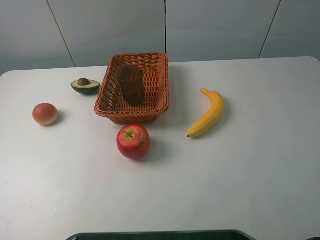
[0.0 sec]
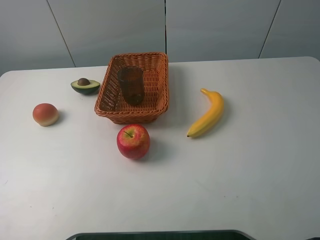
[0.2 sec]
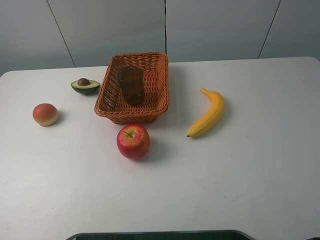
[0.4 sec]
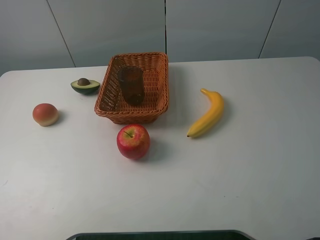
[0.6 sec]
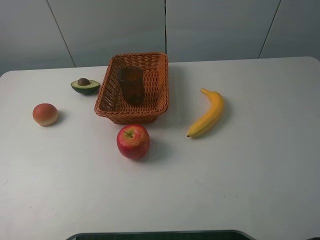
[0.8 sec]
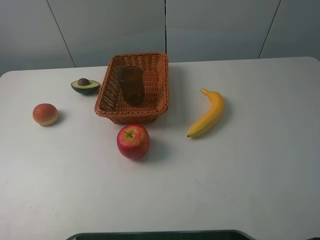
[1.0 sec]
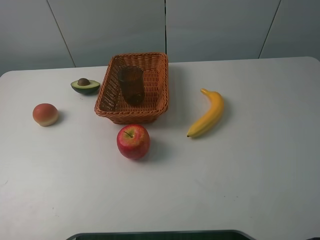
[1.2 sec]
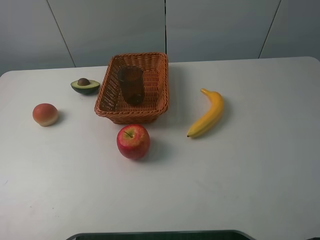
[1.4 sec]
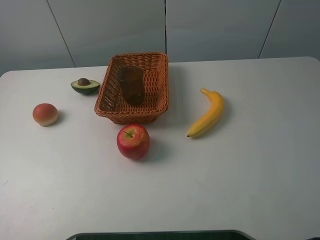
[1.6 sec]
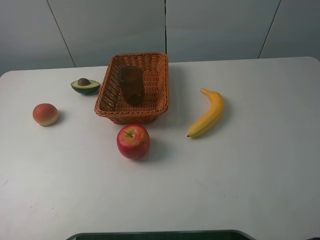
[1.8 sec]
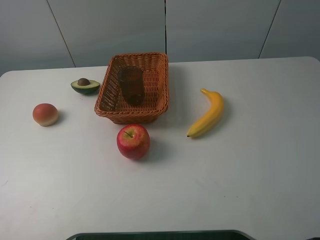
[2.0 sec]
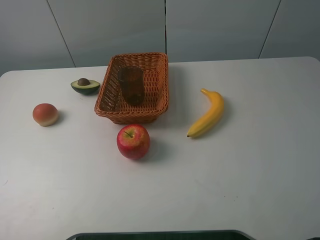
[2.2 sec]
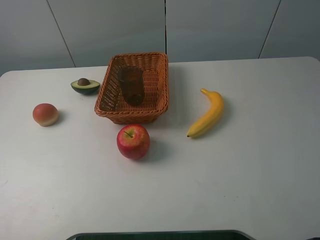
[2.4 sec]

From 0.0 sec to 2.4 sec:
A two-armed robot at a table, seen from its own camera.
From 0.0 sec to 1.2 sec: The left gripper heads backward and downward, covering about 15 cm.
From 1.2 sec to 2.4 sec: Both grippers stay about where they are.
